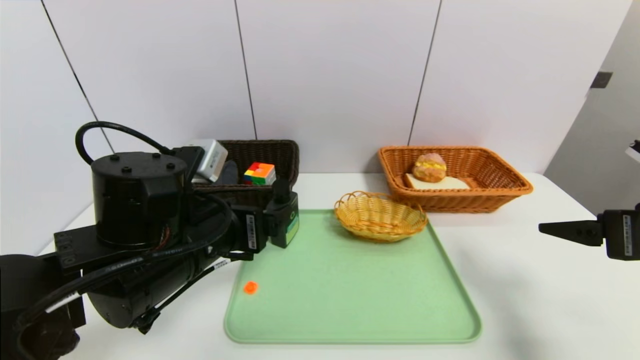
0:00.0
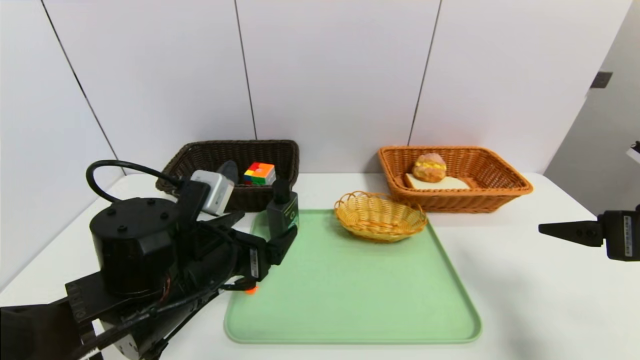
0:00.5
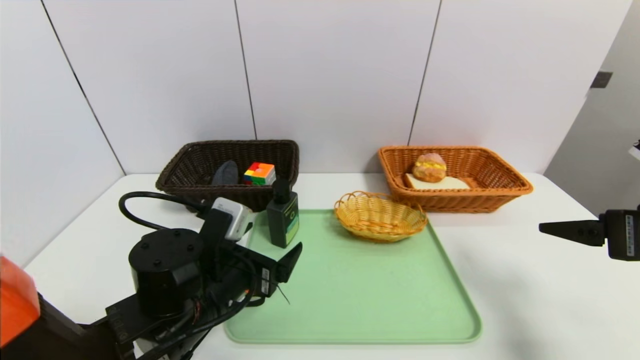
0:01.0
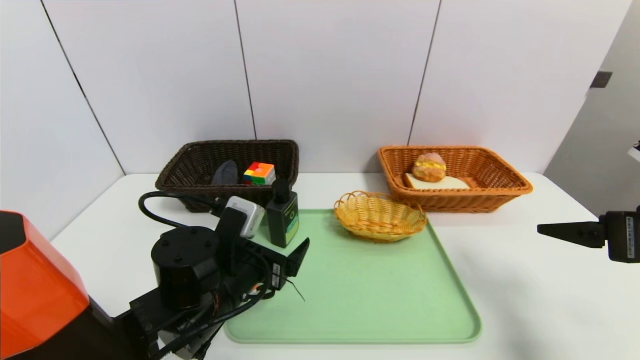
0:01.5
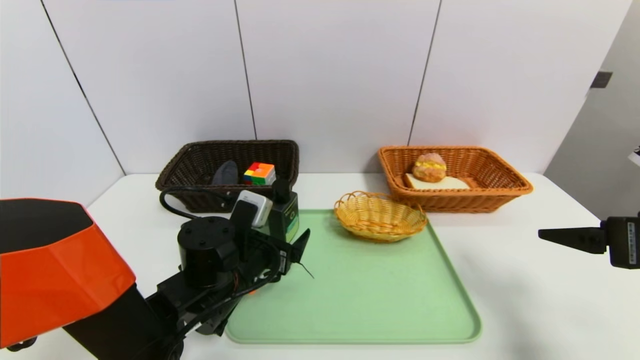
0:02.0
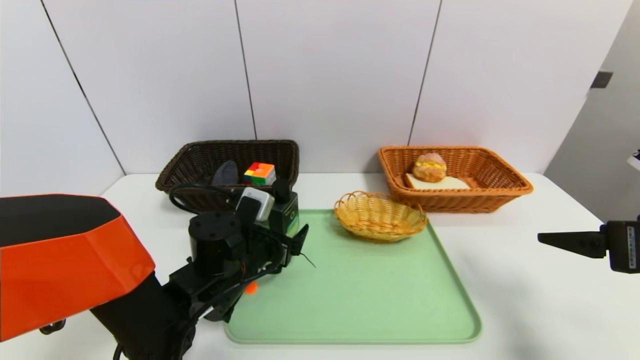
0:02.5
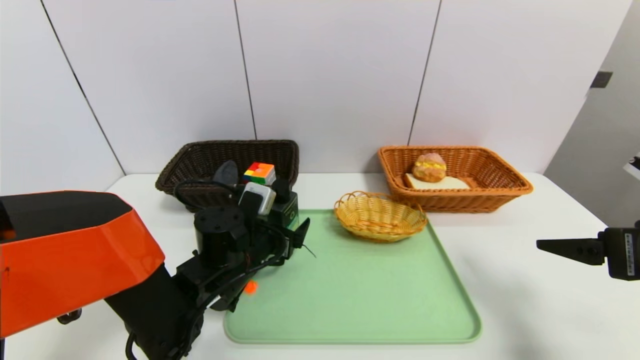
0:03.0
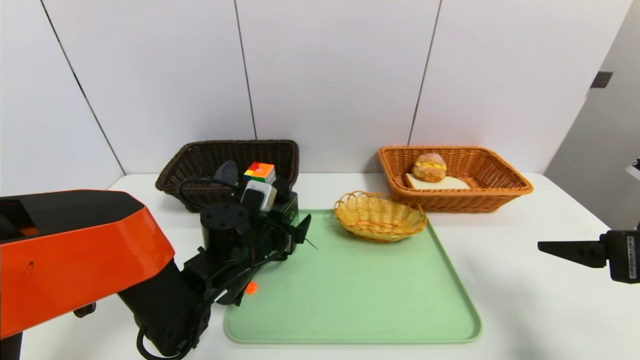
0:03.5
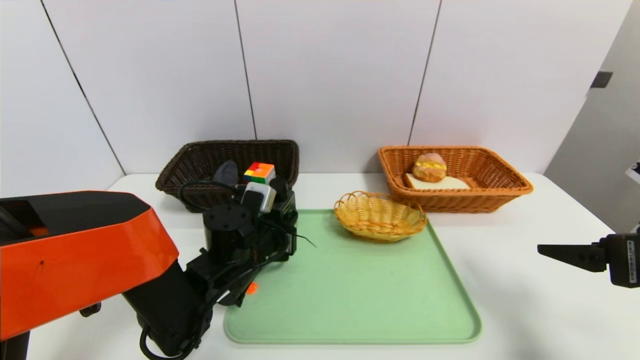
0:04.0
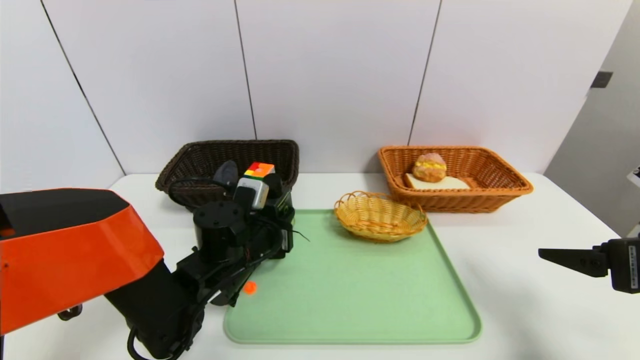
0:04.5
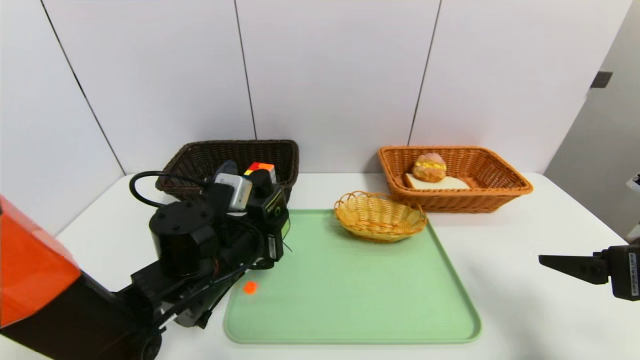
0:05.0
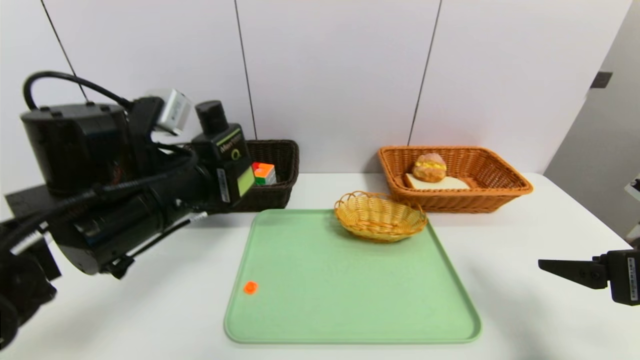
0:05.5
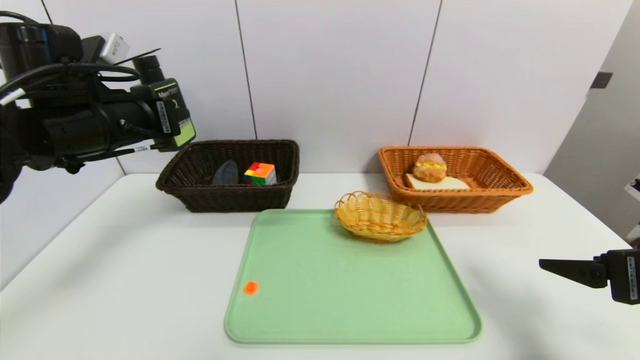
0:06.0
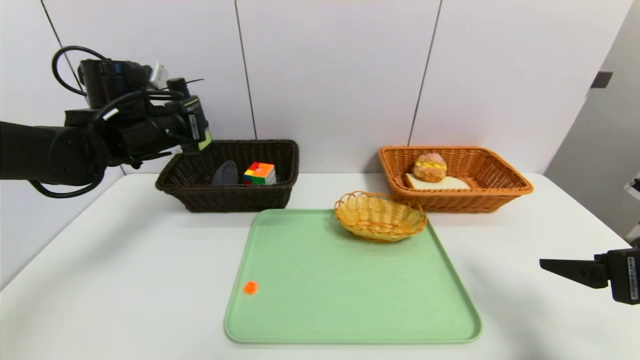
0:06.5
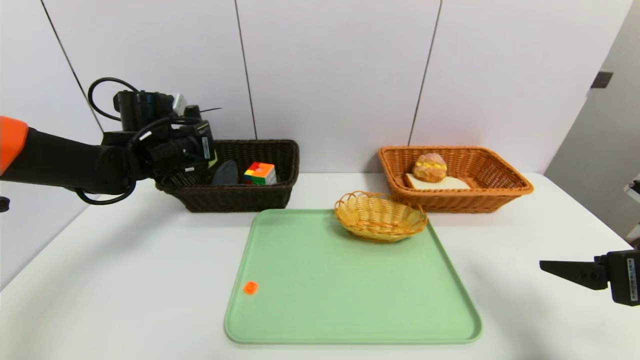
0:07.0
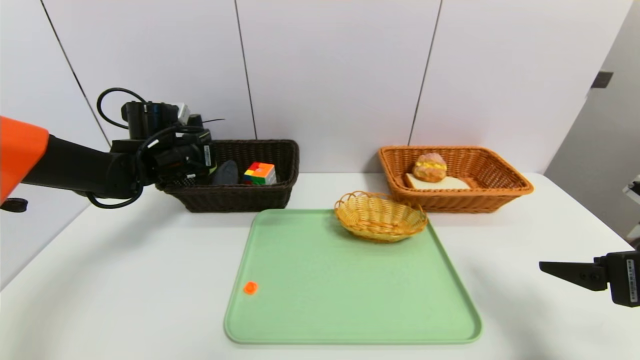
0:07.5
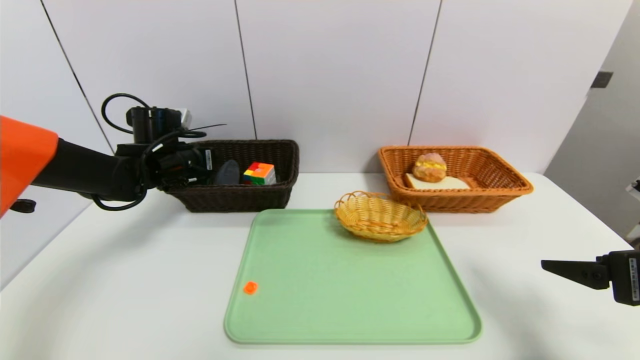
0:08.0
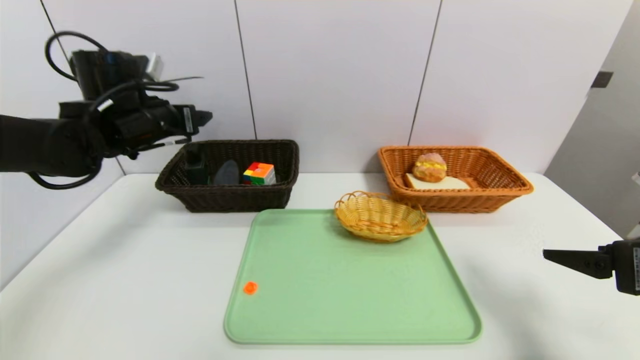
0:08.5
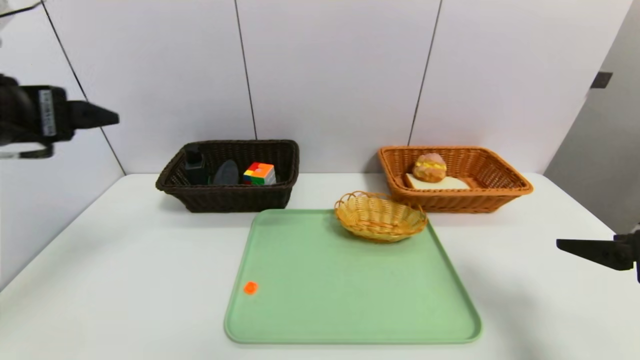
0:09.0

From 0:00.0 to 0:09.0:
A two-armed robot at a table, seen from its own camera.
Task of the whole recording: place the food in the right basket with the right gripper, and place the non food items in the left basket with the left gripper.
Step, from 0:00.0 to 0:08.5: Grasp the hard cleanser and put it in the left basket.
From 0:00.0 to 0:02.0: The left gripper is displaced downward and forward by about 10 cm.
From 0:02.0 to 0:04.5: The left gripper closes its fingers.
From 0:04.5 to 0:07.0: The left gripper travels to the left, forward and upward by about 20 cm.
From 0:07.0 to 0:09.0: The left gripper travels backward and upward by some 25 cm, and opens its fingers.

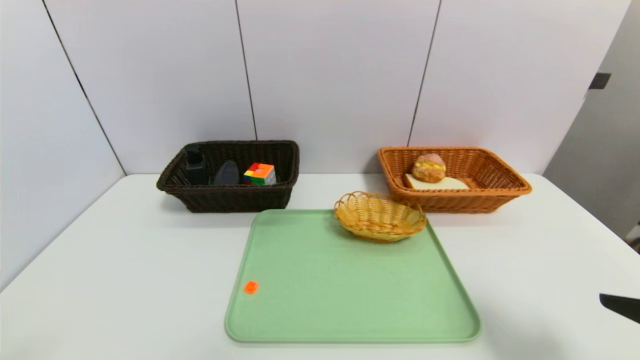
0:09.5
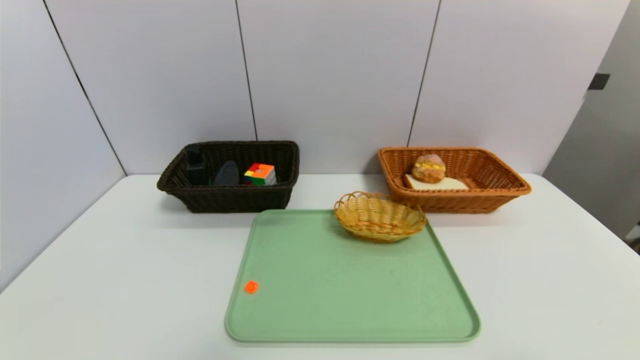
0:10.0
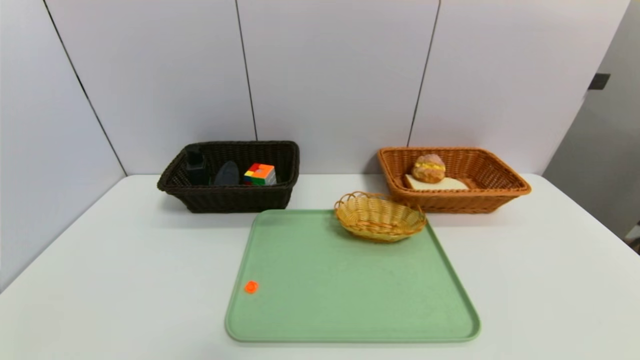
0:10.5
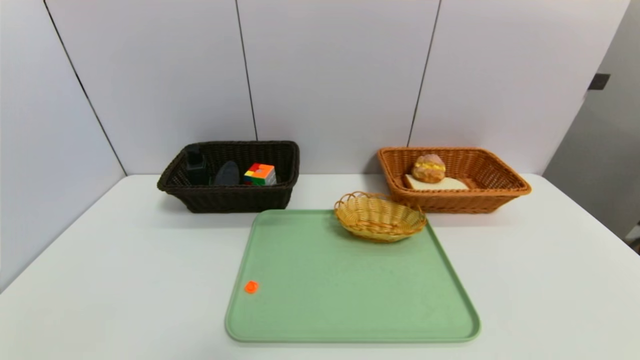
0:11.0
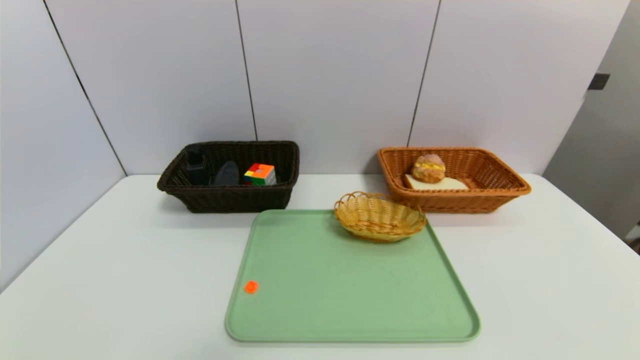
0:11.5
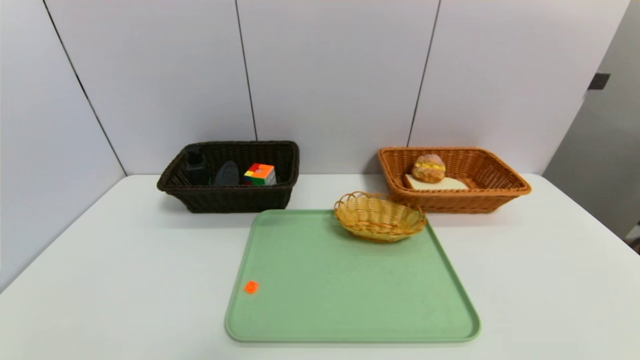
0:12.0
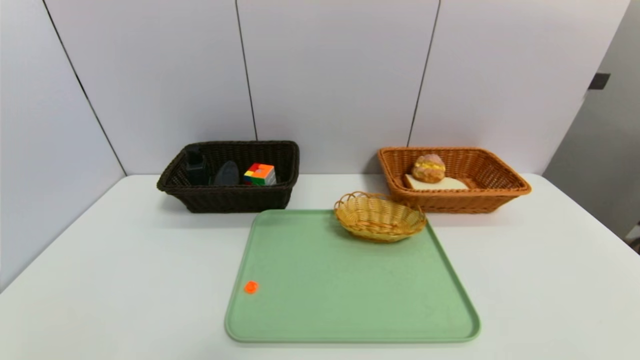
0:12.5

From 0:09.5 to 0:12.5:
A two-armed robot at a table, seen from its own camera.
Task of the whole recording: place the food in the right basket with the right gripper, and place the non food items in the left basket with the left gripper.
From 0:09.5 to 0:11.0: The right gripper goes some 15 cm backward and downward.

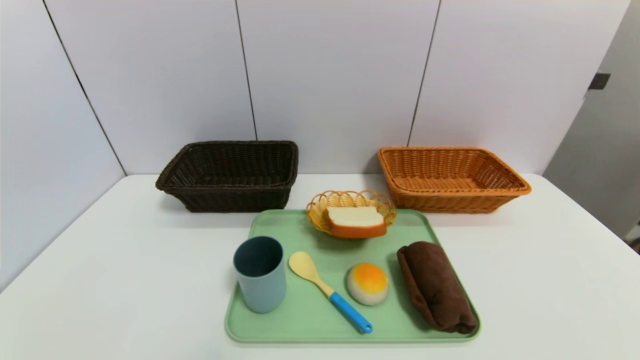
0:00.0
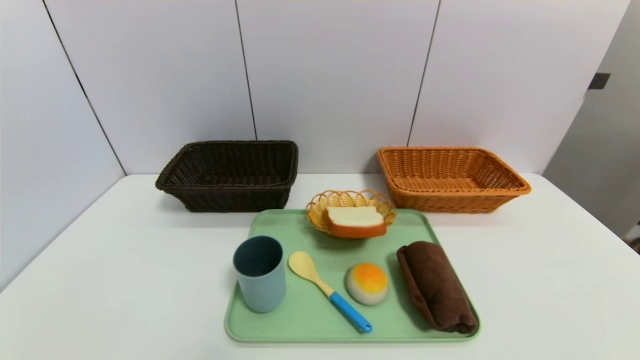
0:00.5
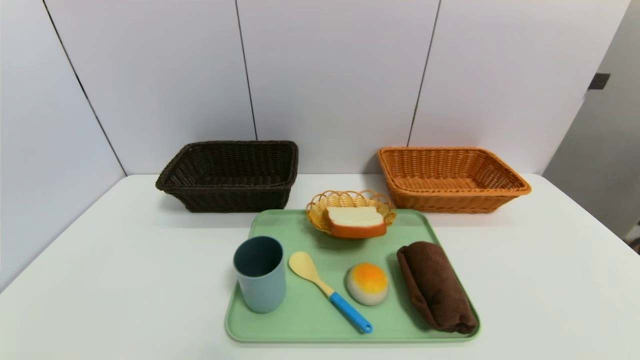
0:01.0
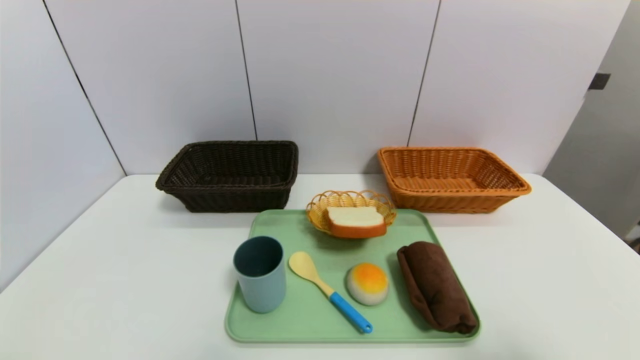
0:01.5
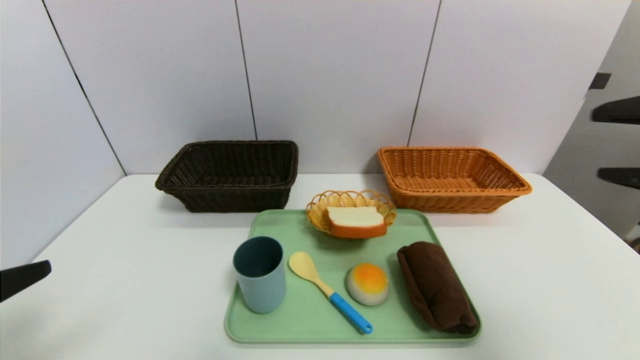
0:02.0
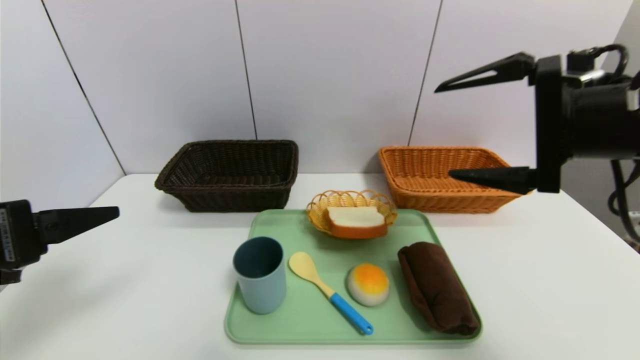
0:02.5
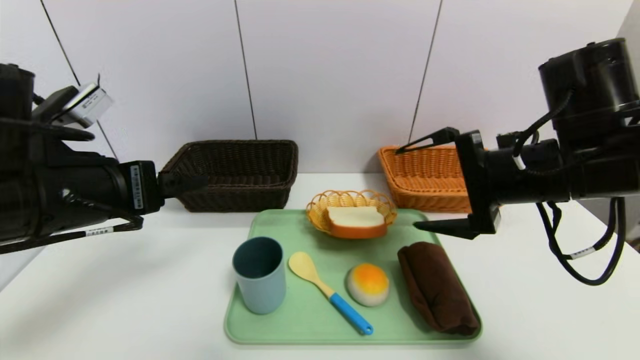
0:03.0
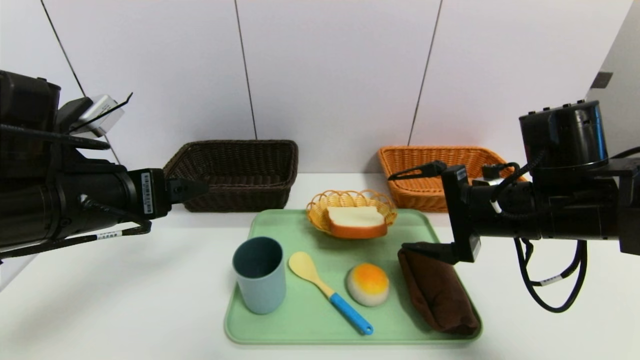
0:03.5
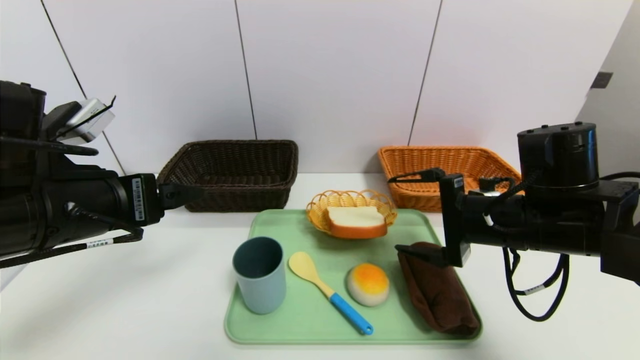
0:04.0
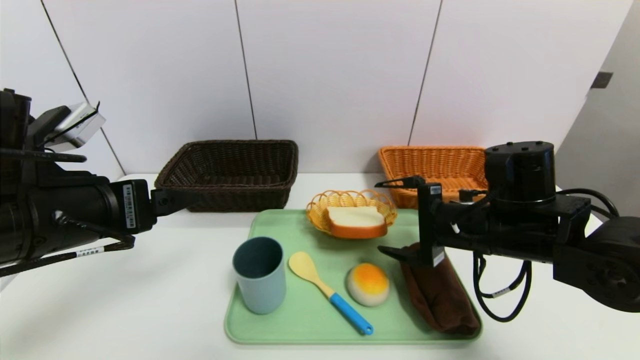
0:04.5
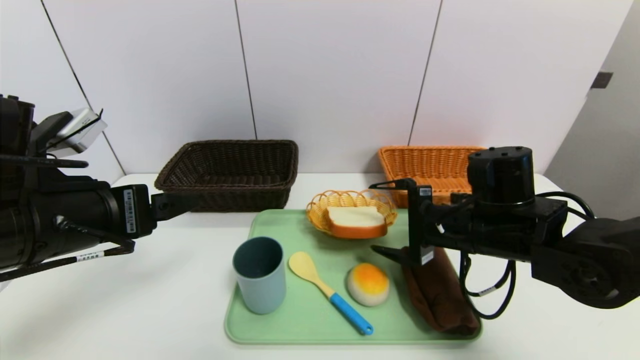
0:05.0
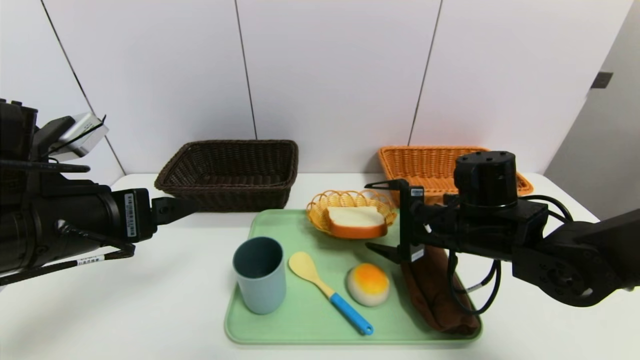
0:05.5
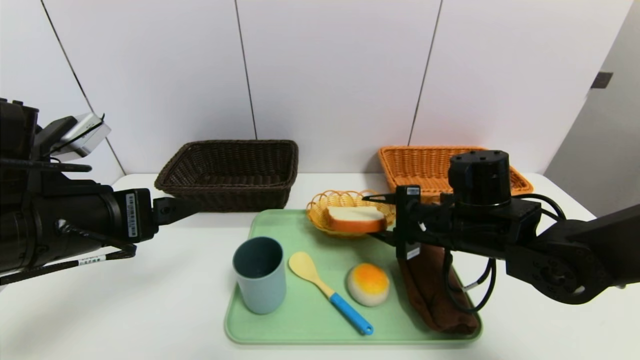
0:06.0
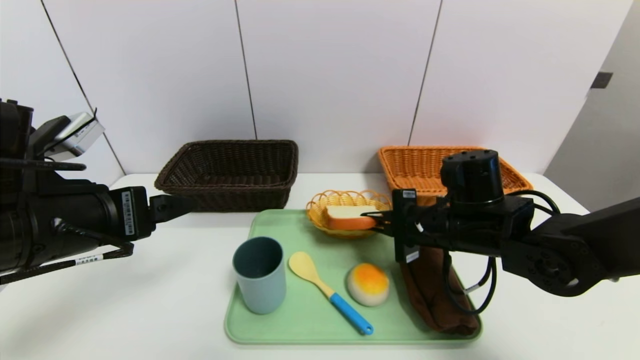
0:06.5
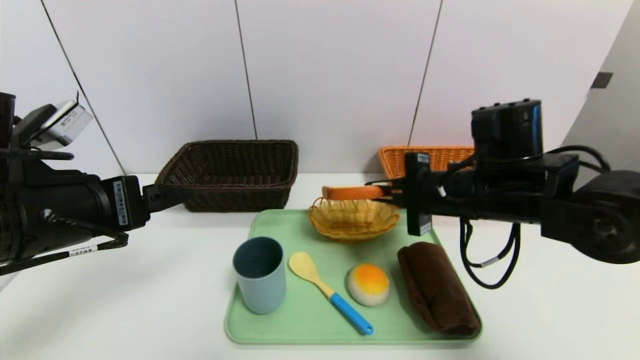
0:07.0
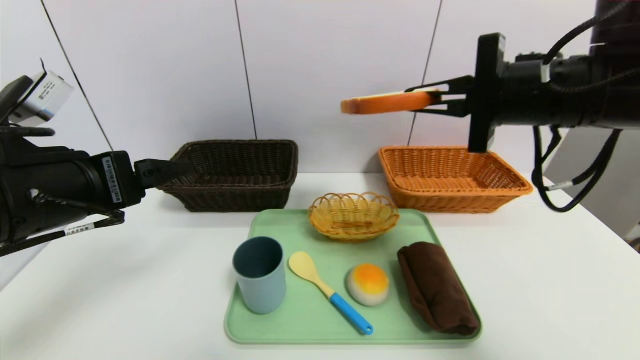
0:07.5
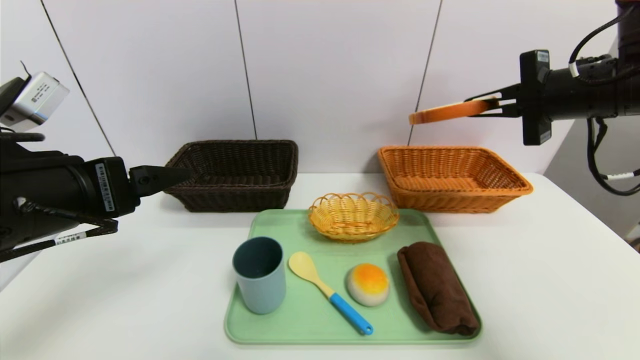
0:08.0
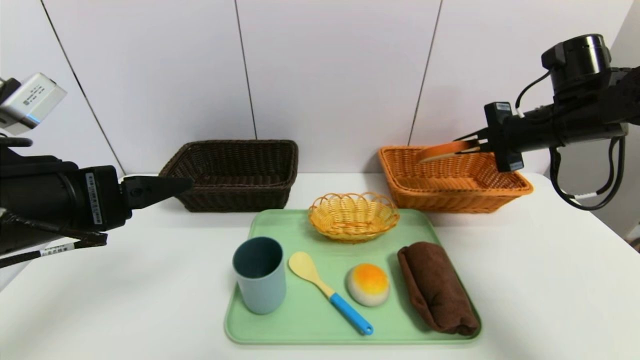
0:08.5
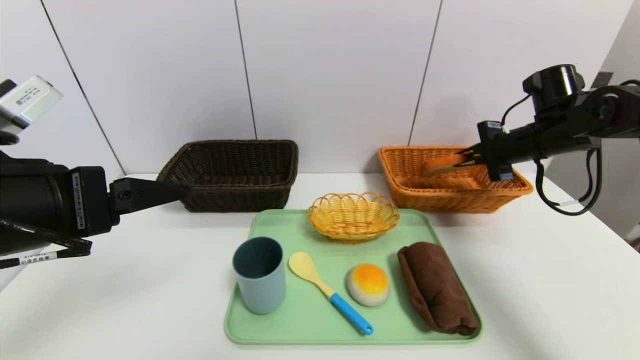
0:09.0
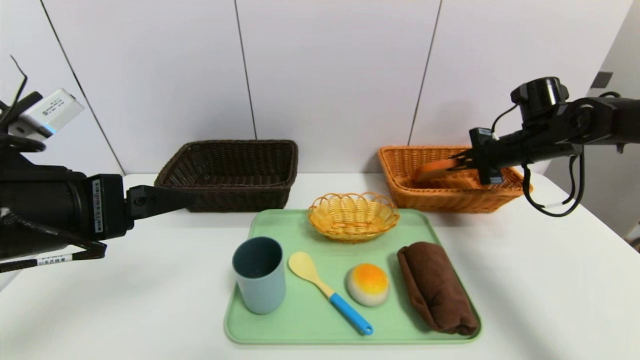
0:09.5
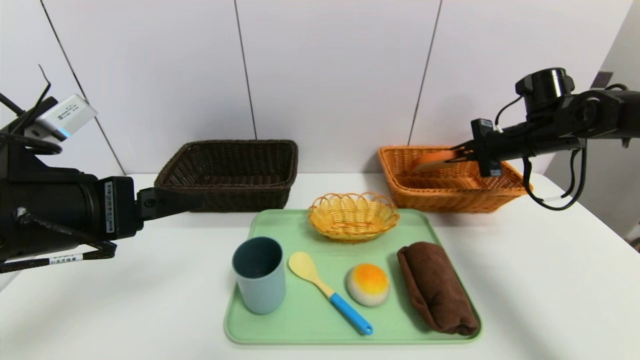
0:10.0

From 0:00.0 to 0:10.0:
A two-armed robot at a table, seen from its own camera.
Task of the whole recording: place the food in the right basket with the right gripper, and place the non food items in the left basket with the left gripper.
From 0:00.0 to 0:02.0: The right gripper goes roughly 30 cm upward and forward. The left gripper heads upward, covering roughly 20 cm.
From 0:02.0 to 0:04.0: The right gripper is displaced downward, forward and to the left by roughly 20 cm; the left gripper is displaced forward and to the right by roughly 15 cm.
From 0:04.0 to 0:06.0: The right gripper changes place by some 5 cm, and closes up.
From 0:06.0 to 0:08.0: The right gripper moves upward and to the right, about 20 cm, and closes.
From 0:08.0 to 0:10.0: The right gripper moves forward and downward, roughly 15 cm.
